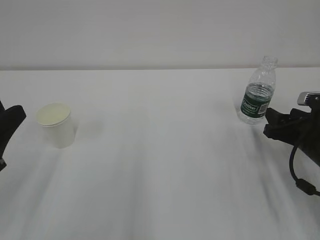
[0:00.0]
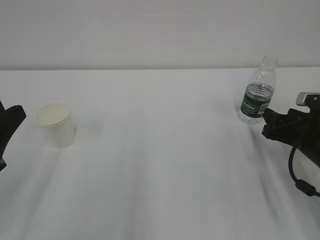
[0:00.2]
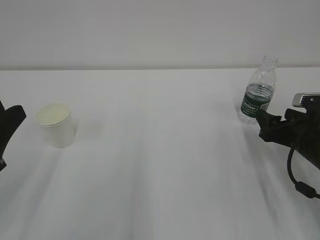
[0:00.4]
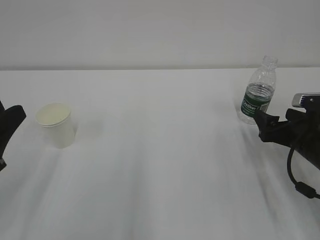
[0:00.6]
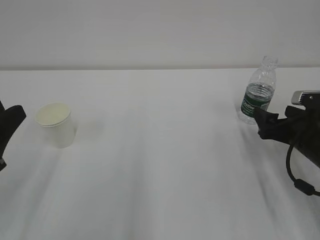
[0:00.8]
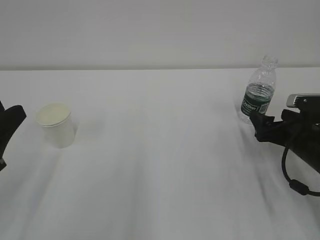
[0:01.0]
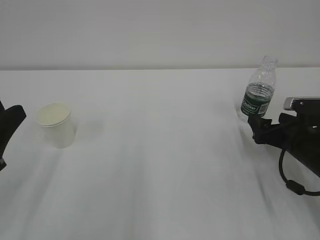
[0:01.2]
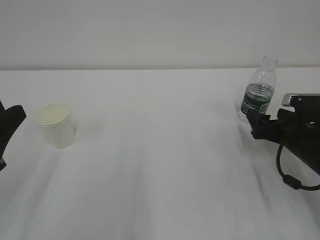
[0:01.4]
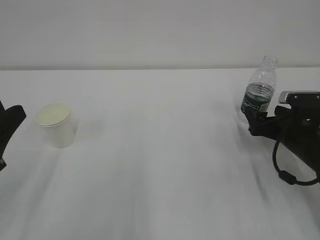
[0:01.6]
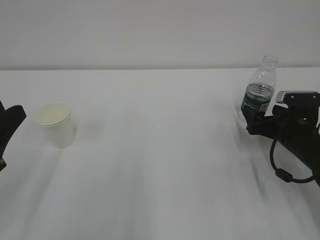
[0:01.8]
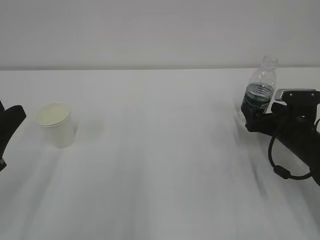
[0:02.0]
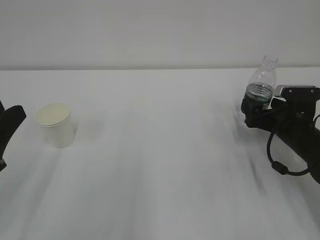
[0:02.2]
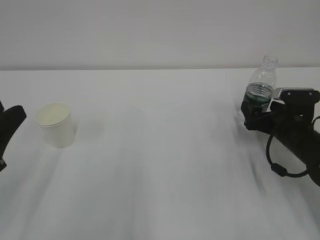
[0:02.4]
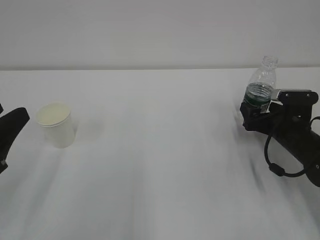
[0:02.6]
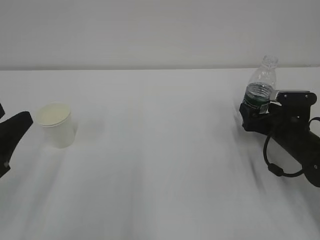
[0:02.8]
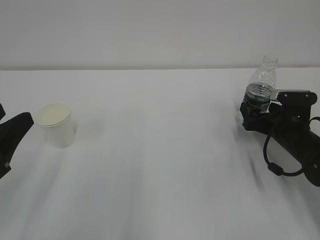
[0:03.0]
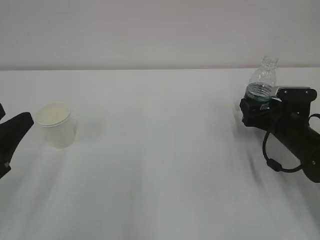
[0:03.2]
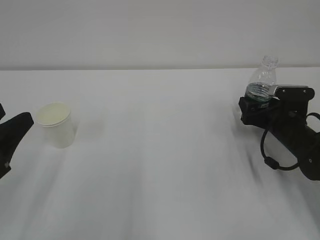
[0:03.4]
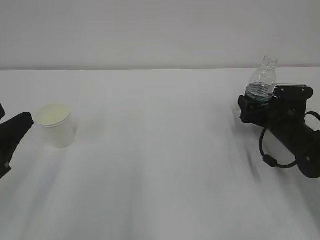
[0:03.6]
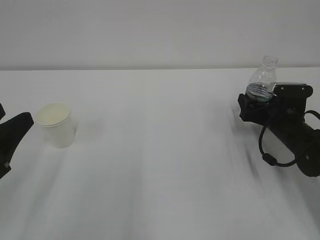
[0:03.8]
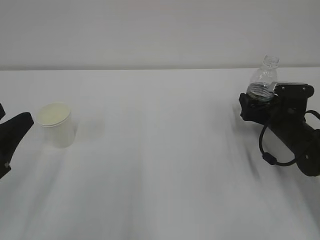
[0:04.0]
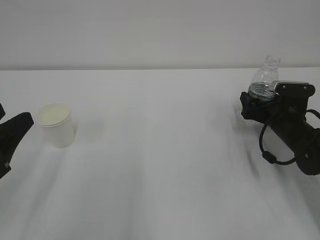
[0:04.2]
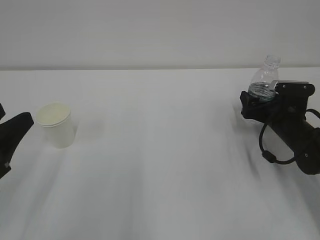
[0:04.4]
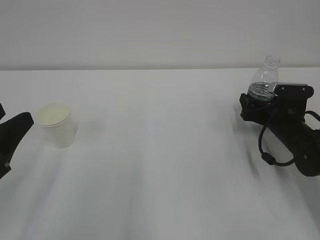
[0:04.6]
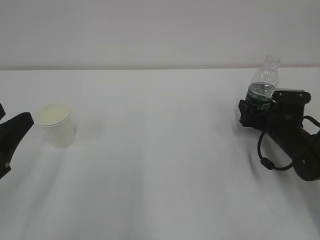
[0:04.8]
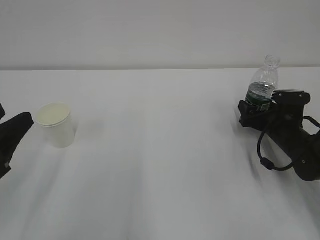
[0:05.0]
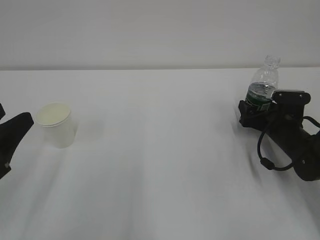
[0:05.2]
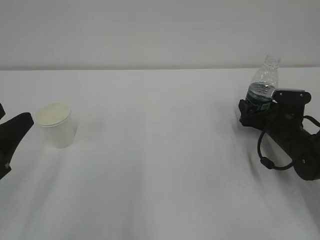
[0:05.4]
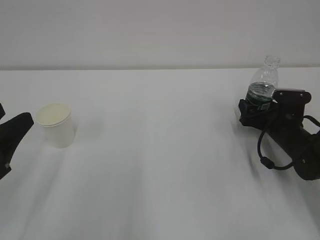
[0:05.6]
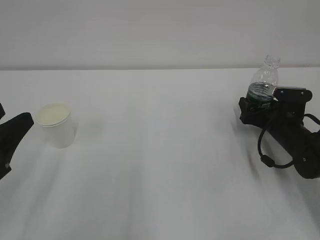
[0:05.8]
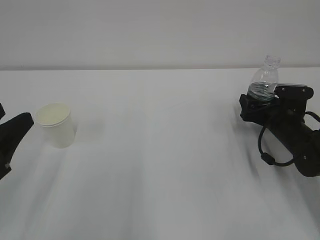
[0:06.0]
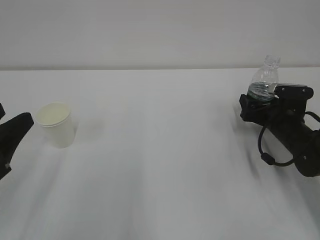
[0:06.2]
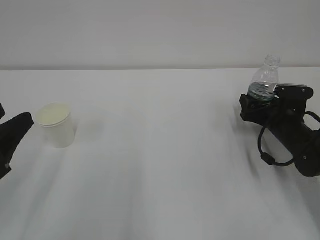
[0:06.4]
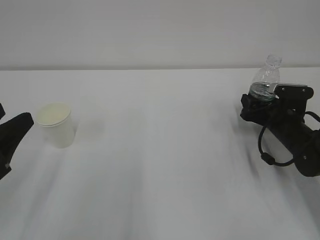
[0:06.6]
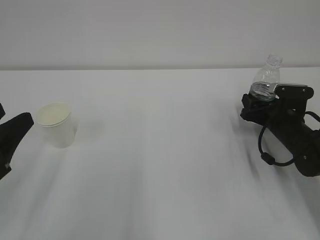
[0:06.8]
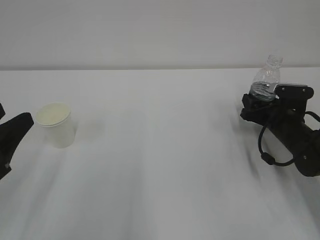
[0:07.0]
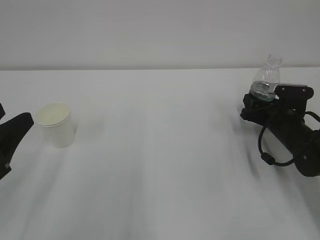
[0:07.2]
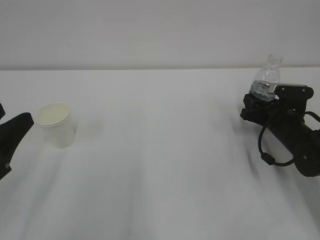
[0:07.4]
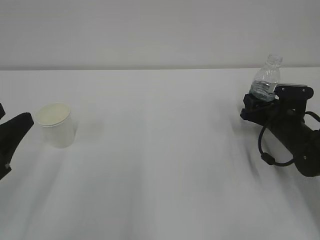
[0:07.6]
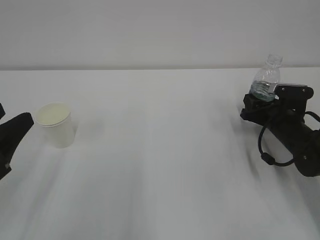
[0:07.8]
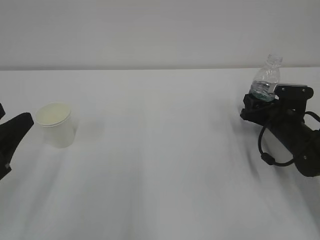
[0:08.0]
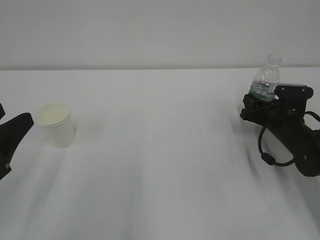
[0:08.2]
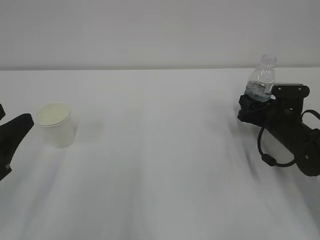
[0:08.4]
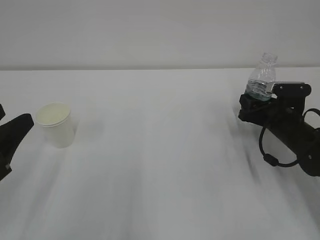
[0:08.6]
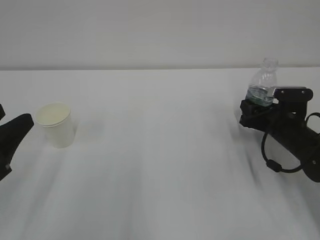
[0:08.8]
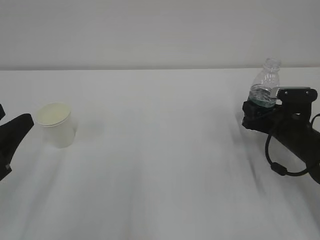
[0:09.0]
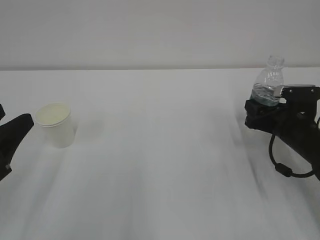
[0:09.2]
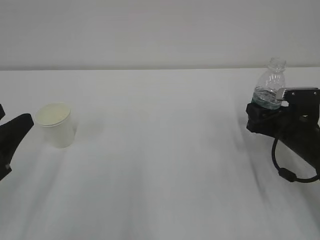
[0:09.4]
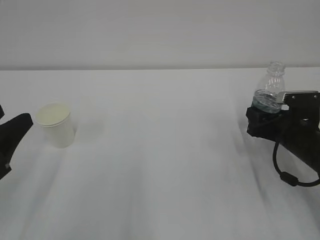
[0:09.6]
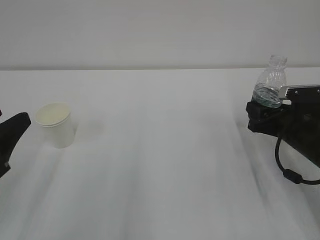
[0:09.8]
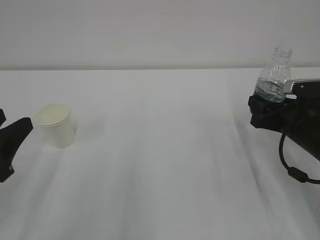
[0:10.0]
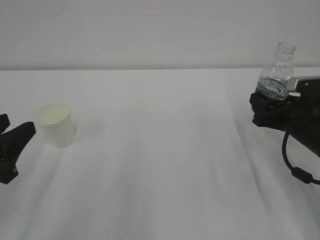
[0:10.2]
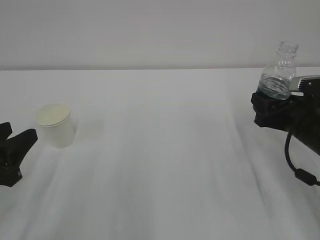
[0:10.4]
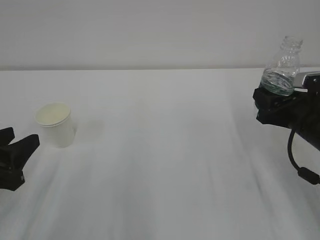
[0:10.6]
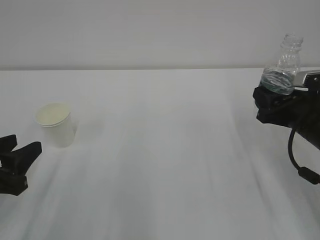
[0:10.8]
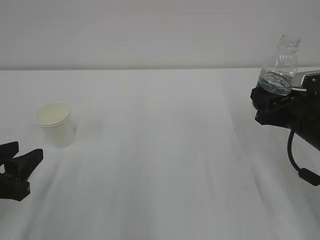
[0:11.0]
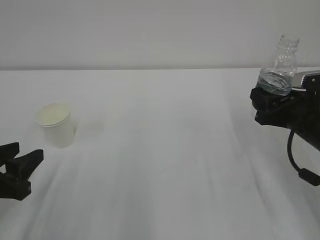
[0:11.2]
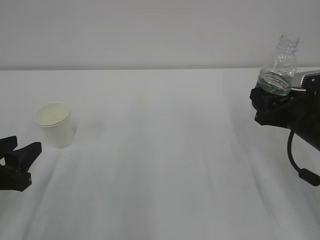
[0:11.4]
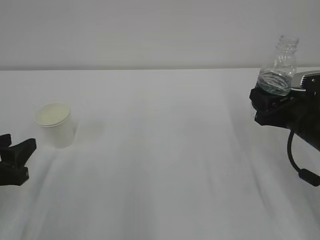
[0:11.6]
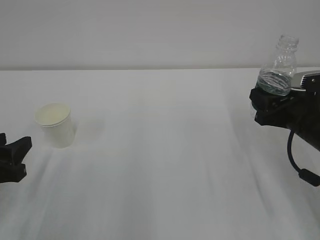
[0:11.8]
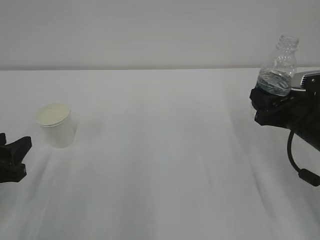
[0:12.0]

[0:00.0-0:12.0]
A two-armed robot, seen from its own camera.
0:00.0 to 0:01.6: The right gripper opens.
0:01.6 to 0:04.4: The grippers make only small movements.
0:04.4 to 0:06.0: There are only small adjustments of the grippers.
0:07.6 to 0:09.0: The grippers make only small movements.
0:09.0 to 0:10.4: The right gripper shifts some 10 cm upward and backward.
0:10.4 to 0:12.0: The grippers move only a little.

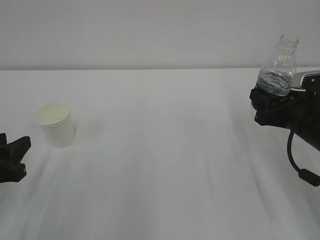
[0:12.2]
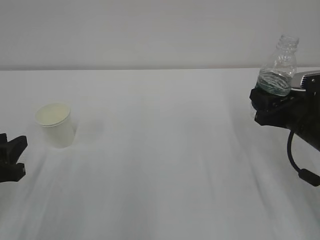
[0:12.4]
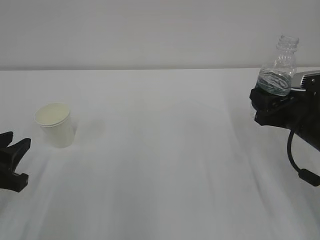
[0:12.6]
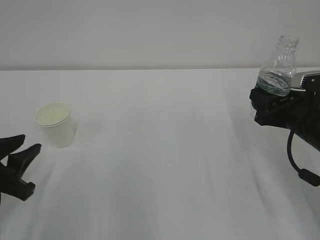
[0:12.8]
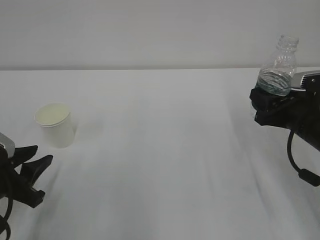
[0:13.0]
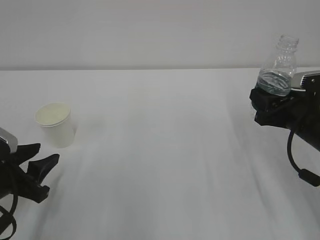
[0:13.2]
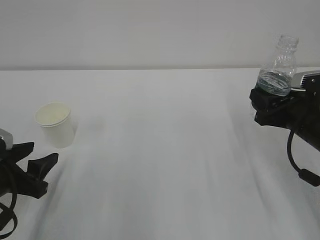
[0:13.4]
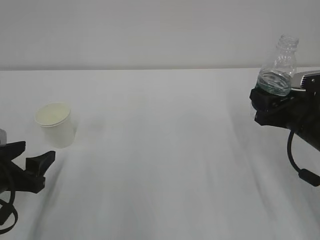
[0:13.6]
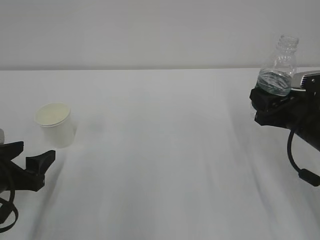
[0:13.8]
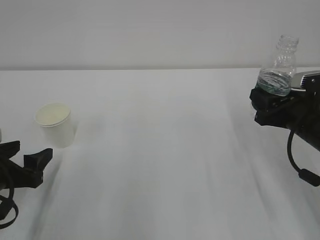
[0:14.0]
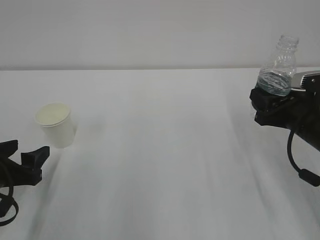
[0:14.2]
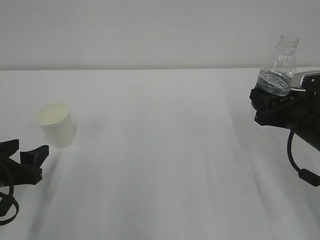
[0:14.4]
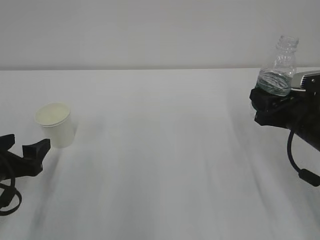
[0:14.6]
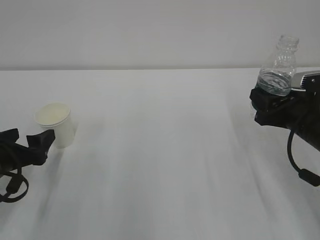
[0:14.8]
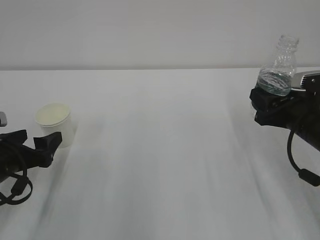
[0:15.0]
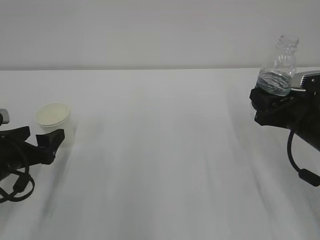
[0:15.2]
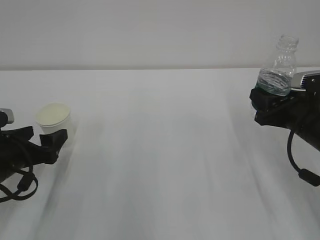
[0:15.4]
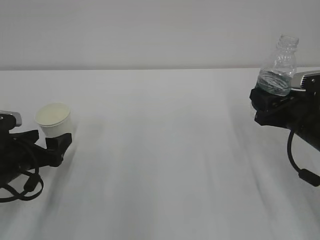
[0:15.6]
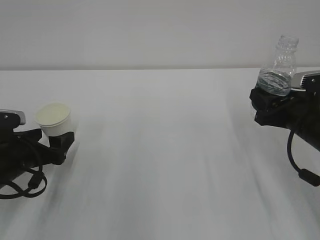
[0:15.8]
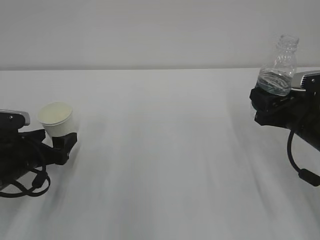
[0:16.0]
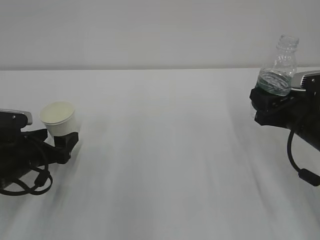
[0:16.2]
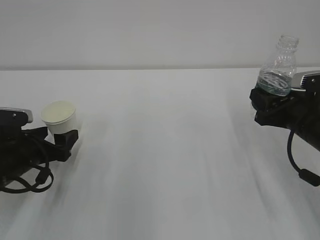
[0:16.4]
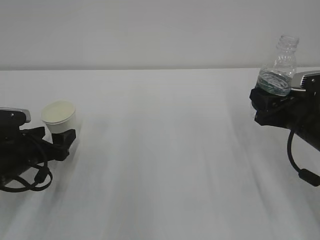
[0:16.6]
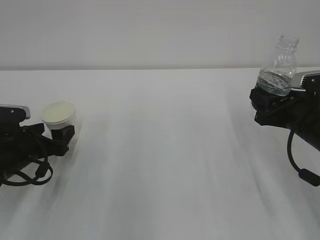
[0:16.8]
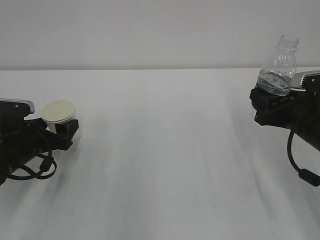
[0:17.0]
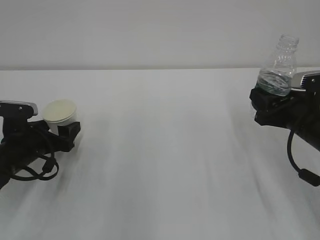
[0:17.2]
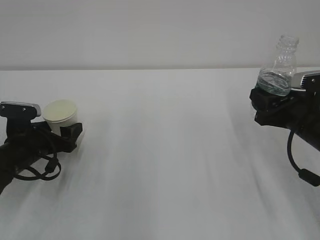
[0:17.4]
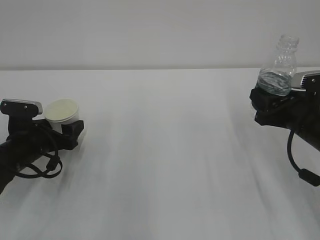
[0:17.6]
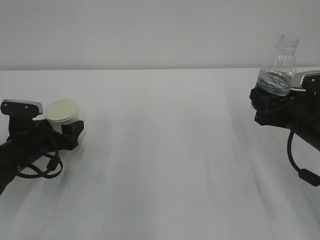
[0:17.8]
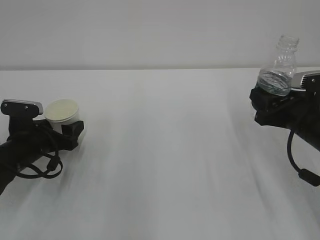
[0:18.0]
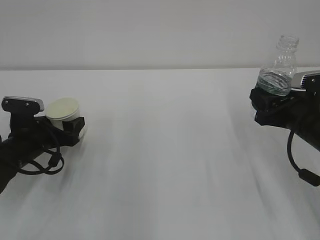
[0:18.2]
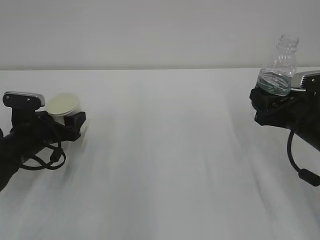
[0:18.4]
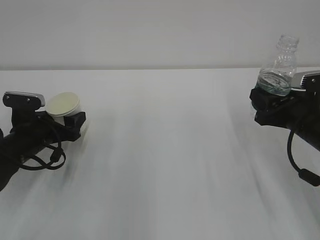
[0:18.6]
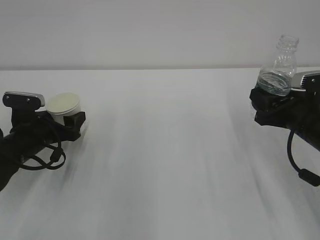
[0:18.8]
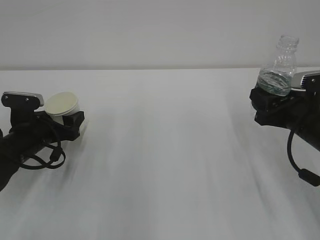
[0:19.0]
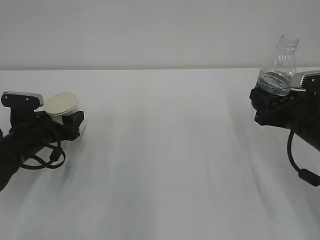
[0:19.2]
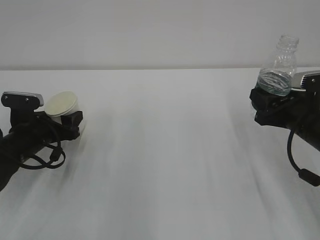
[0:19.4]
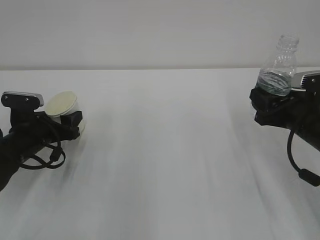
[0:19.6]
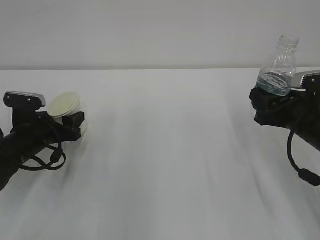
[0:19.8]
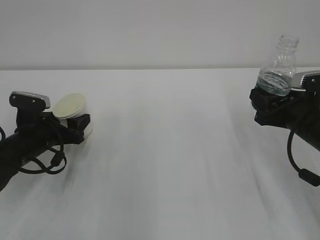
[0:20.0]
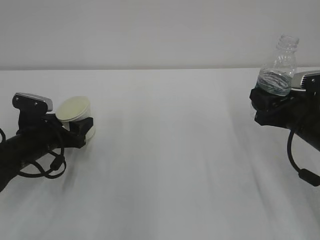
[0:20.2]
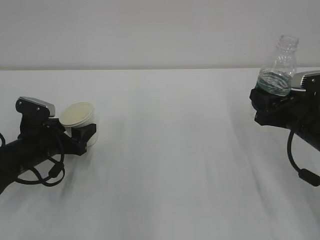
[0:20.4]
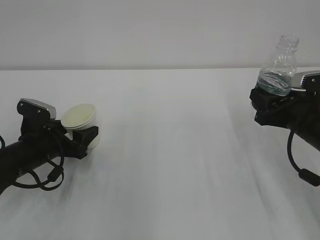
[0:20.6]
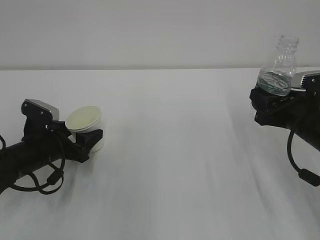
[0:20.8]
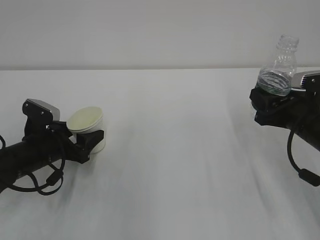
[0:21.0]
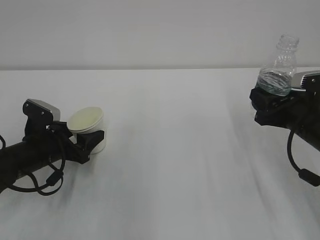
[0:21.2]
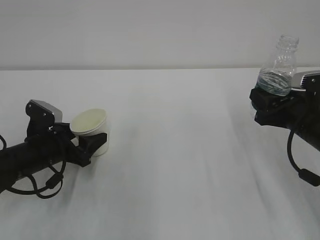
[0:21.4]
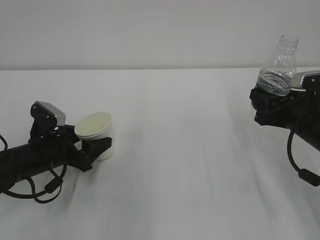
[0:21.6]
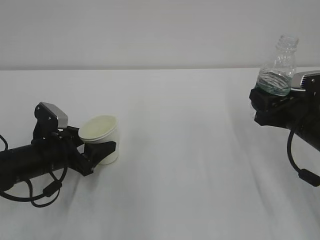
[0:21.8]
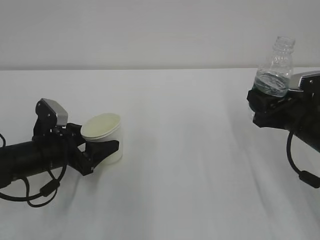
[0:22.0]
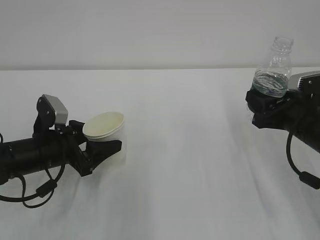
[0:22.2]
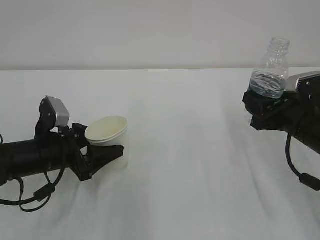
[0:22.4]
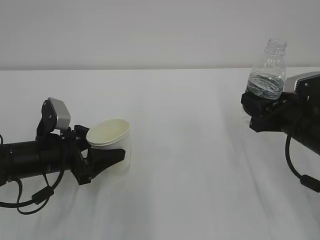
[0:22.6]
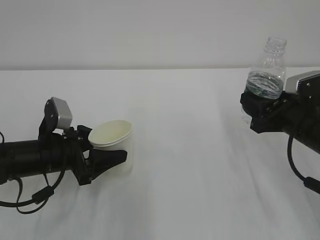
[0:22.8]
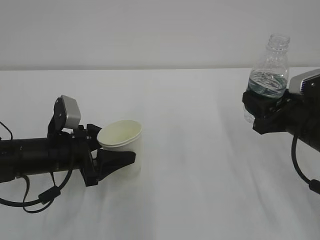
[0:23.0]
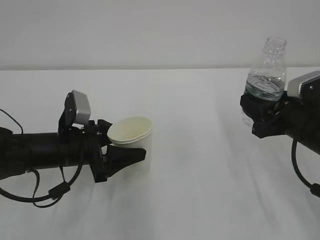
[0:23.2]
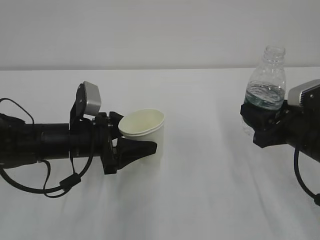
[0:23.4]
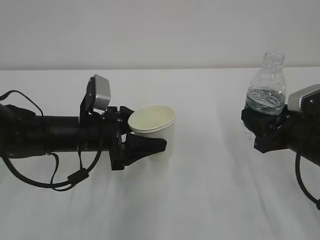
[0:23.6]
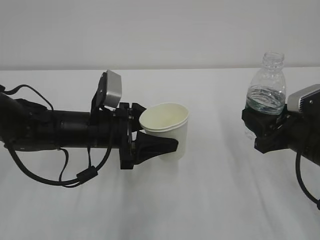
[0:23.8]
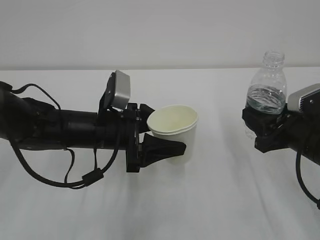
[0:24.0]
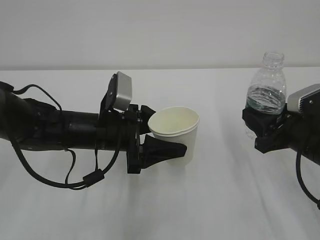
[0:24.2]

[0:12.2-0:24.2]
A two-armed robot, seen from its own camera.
0:12.2 to 0:13.8: The left gripper opens up.
0:13.8 to 0:15.2: The grippers make only small movements.
0:15.2 to 0:16.6: The grippers stay close to where they were, moving slightly.
0:16.6 to 0:18.2: The grippers make only small movements.
0:18.2 to 0:19.8: Neither gripper changes place.
0:19.8 to 0:21.2: The grippers make only small movements.
0:22.6 to 0:24.2: The left gripper shifts roughly 10 cm to the right.
